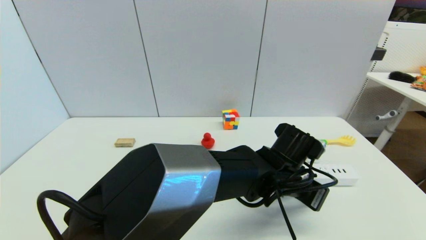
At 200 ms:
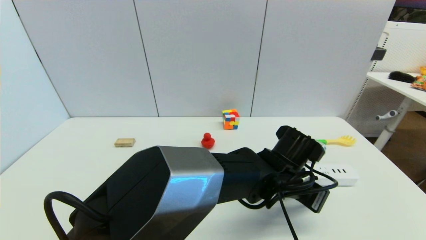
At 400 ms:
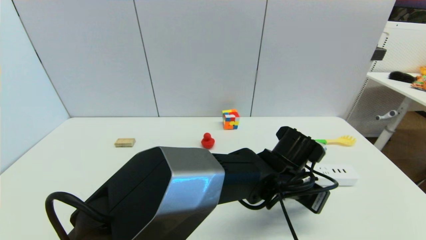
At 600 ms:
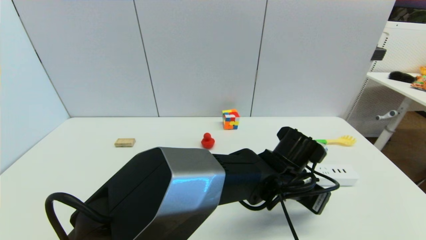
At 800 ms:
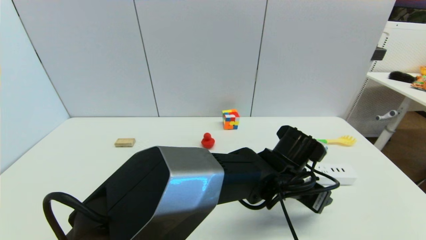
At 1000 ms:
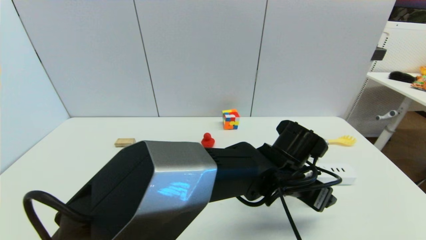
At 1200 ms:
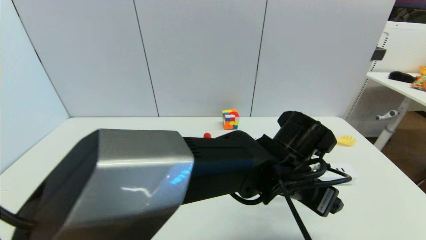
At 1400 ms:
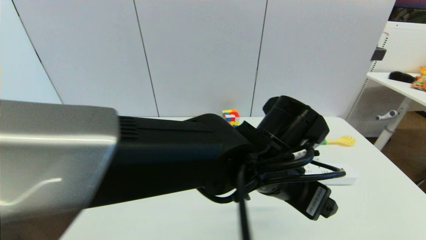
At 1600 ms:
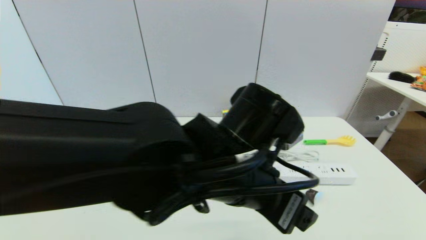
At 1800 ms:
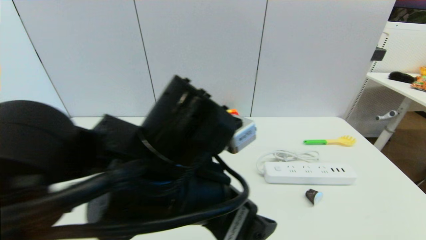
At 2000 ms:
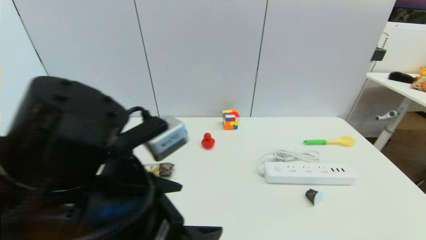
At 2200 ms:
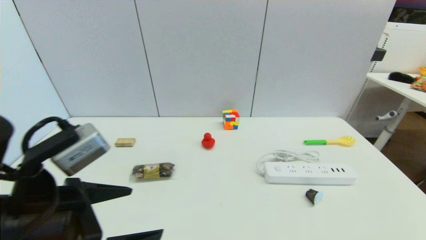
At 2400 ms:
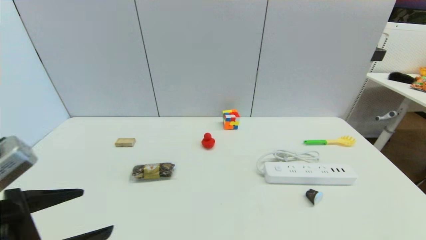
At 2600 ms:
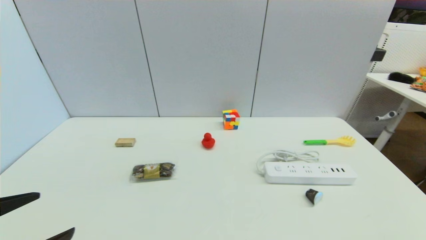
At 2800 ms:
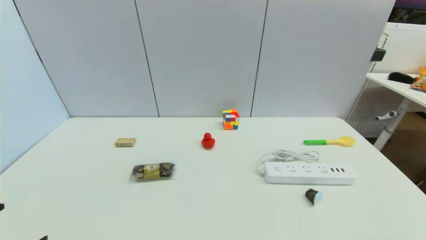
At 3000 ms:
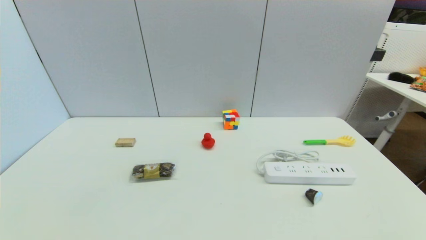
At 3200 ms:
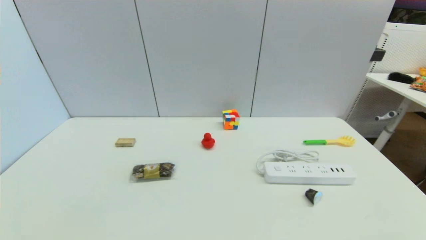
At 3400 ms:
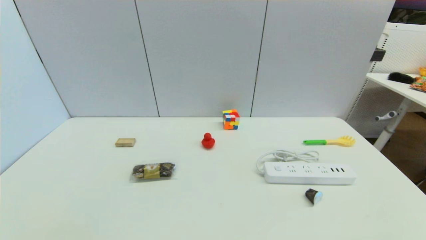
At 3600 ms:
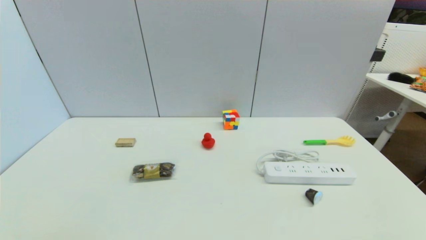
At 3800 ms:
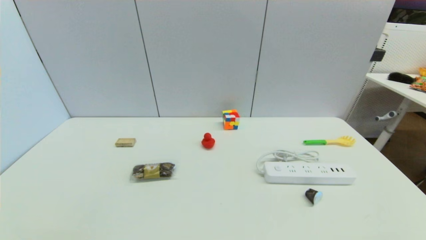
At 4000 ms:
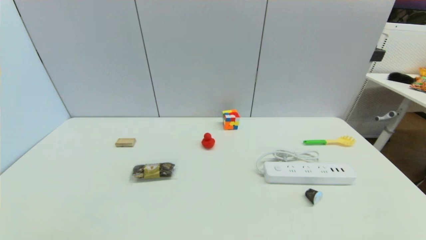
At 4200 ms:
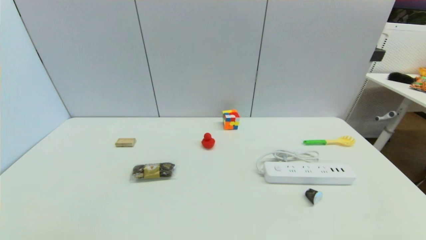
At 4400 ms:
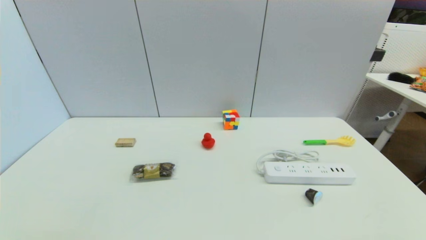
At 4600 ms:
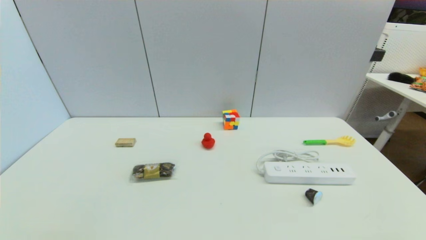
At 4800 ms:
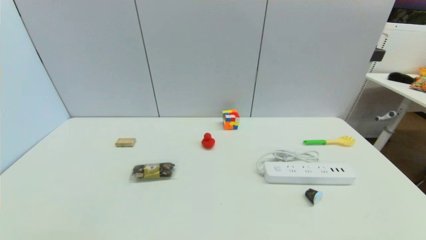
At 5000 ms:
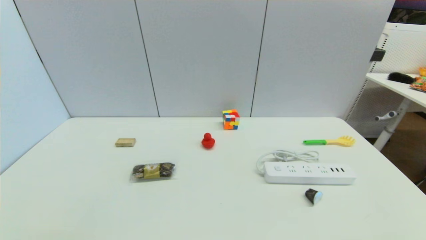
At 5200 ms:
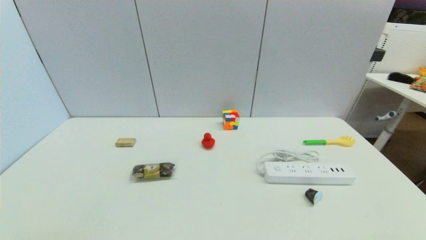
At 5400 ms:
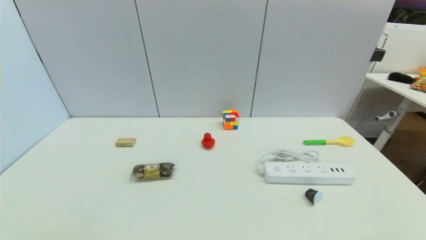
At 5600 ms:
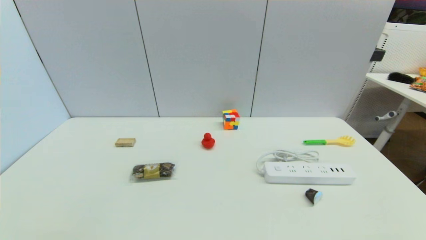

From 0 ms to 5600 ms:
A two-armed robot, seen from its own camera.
From 0 ms to 1400 ms: The left gripper travels upward, to the left and backward by some 10 cm, and opens up.
From 1400 ms to 2800 ms: The left gripper is displaced to the left and backward by some 40 cm.
From 4200 ms to 5600 ms: Neither gripper changes place.

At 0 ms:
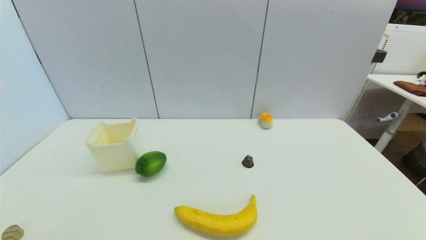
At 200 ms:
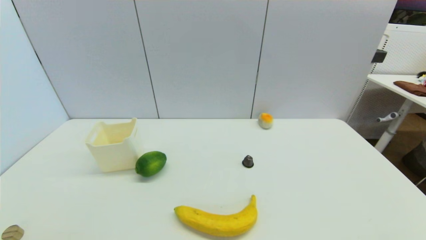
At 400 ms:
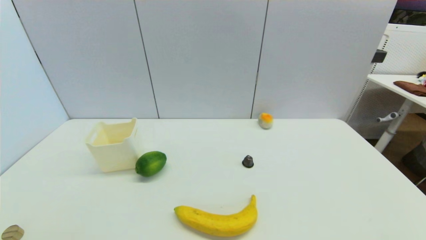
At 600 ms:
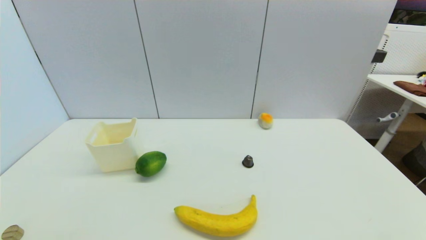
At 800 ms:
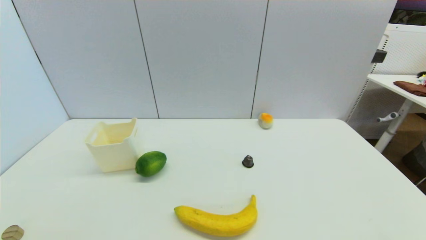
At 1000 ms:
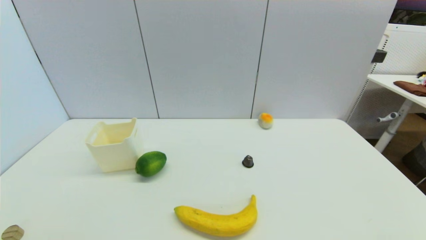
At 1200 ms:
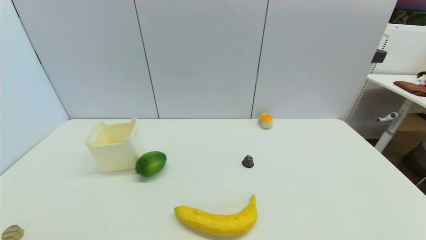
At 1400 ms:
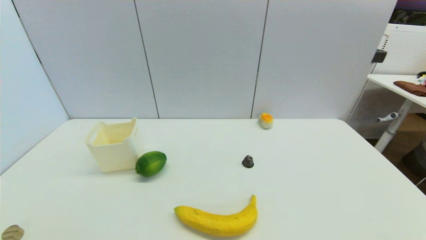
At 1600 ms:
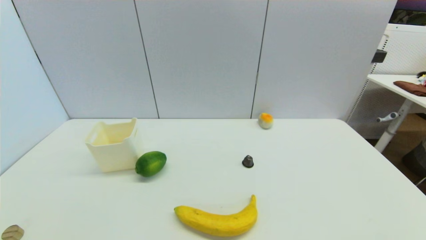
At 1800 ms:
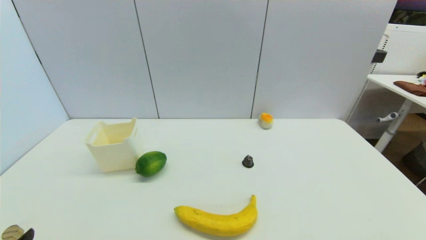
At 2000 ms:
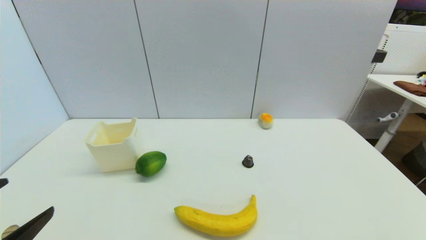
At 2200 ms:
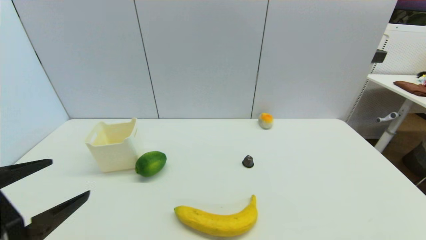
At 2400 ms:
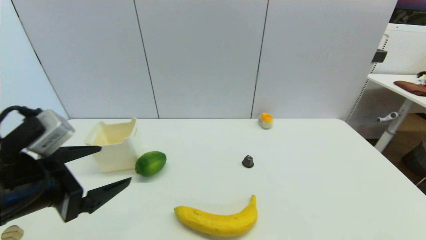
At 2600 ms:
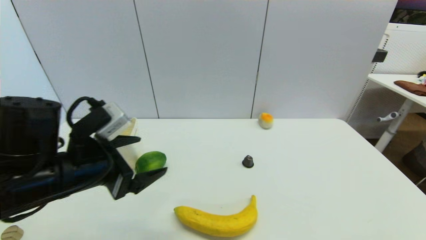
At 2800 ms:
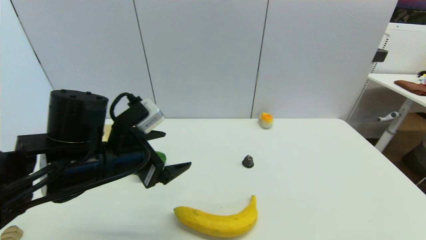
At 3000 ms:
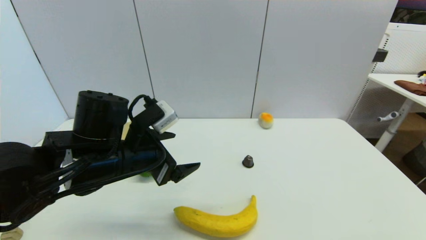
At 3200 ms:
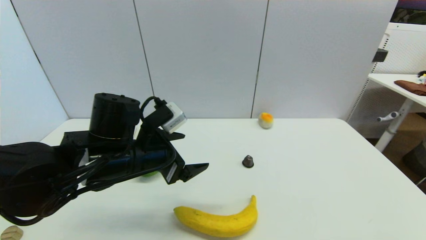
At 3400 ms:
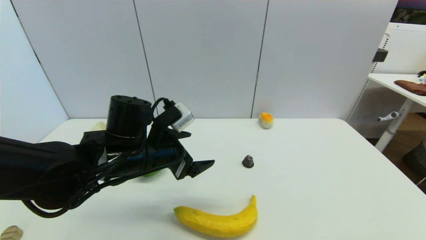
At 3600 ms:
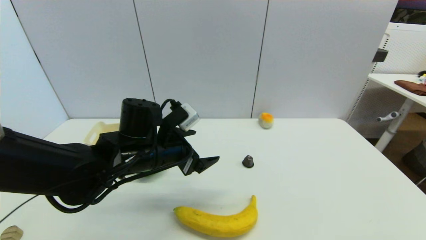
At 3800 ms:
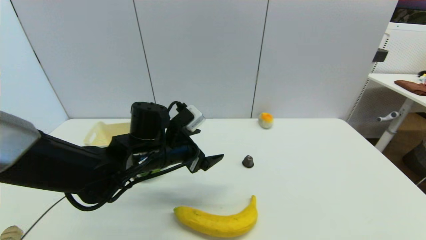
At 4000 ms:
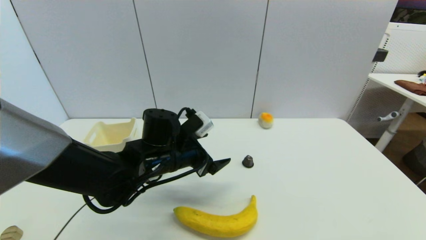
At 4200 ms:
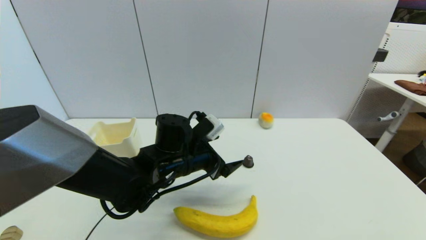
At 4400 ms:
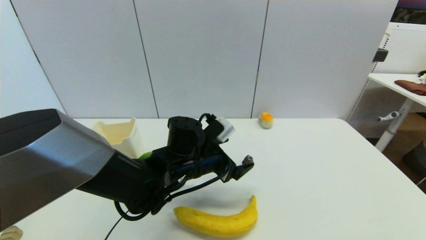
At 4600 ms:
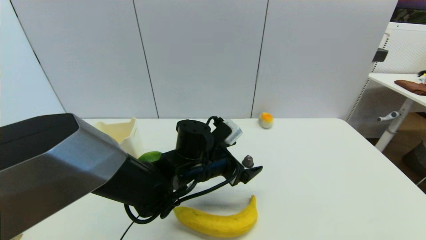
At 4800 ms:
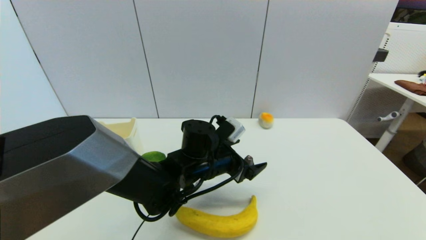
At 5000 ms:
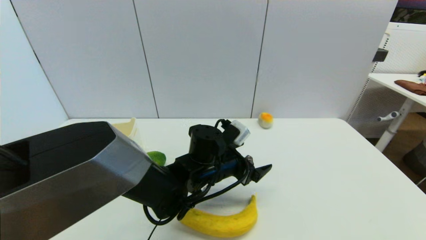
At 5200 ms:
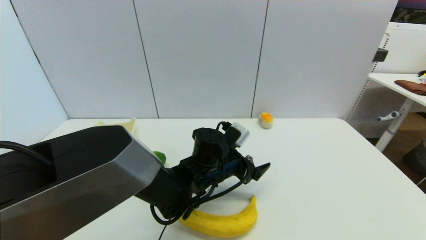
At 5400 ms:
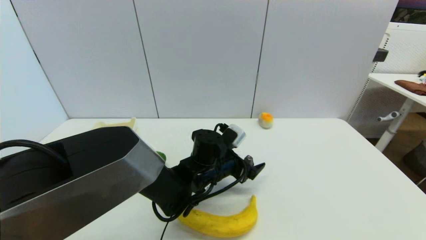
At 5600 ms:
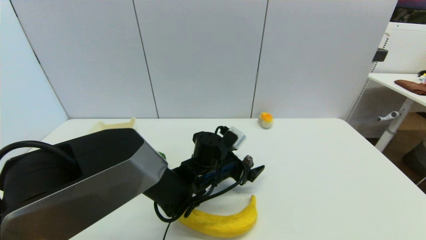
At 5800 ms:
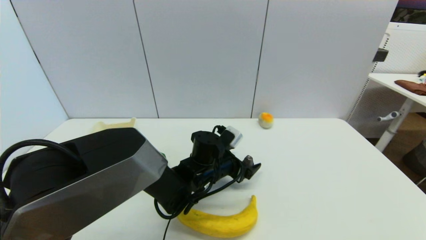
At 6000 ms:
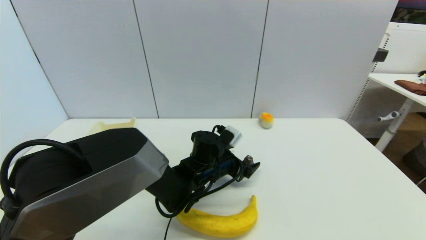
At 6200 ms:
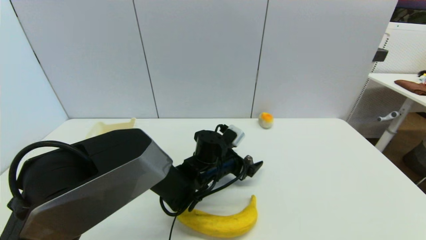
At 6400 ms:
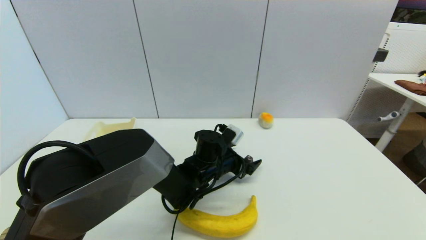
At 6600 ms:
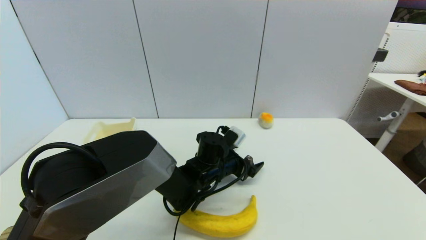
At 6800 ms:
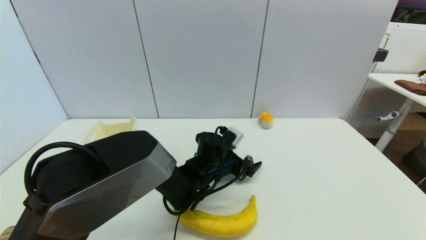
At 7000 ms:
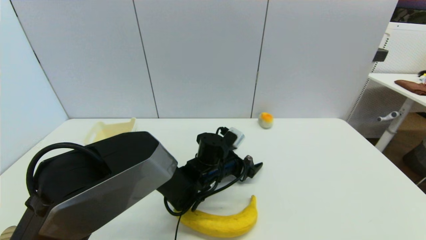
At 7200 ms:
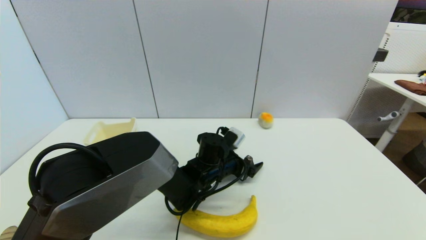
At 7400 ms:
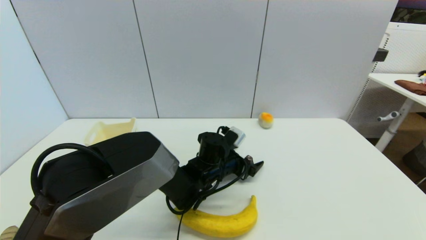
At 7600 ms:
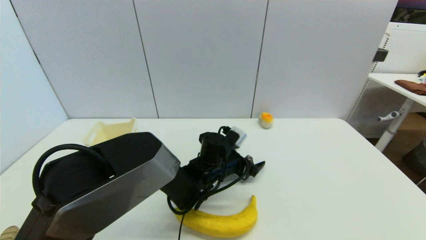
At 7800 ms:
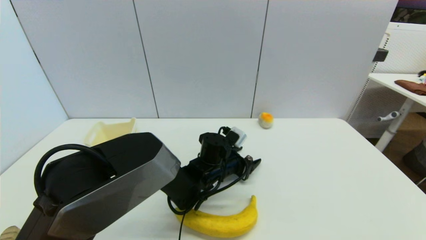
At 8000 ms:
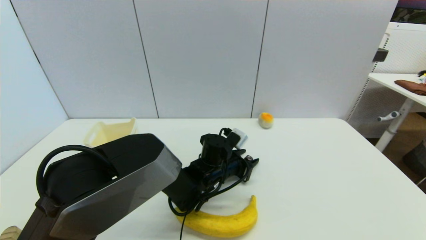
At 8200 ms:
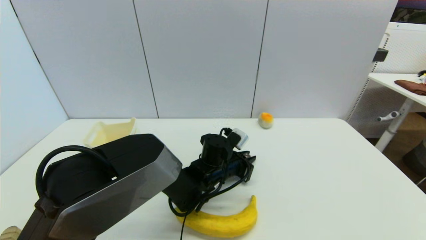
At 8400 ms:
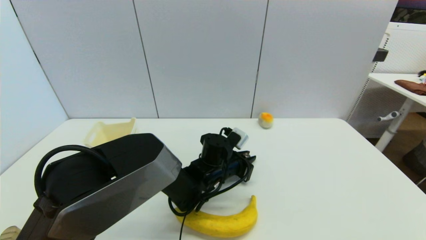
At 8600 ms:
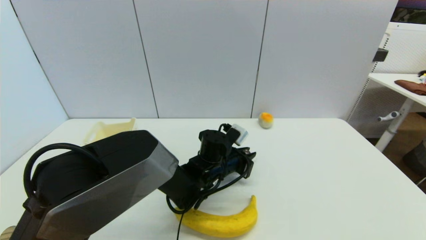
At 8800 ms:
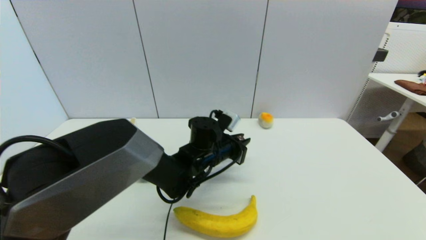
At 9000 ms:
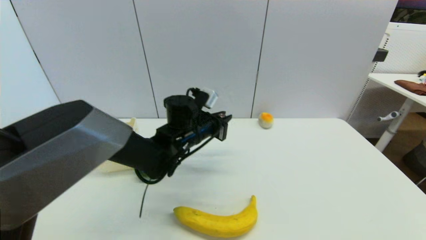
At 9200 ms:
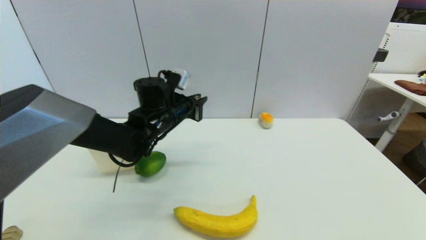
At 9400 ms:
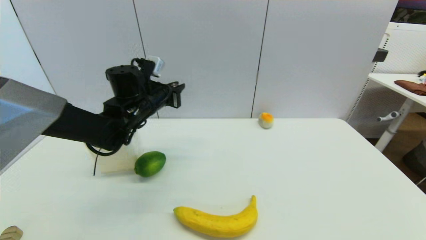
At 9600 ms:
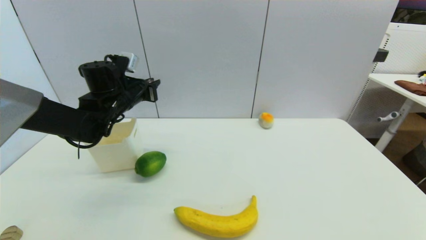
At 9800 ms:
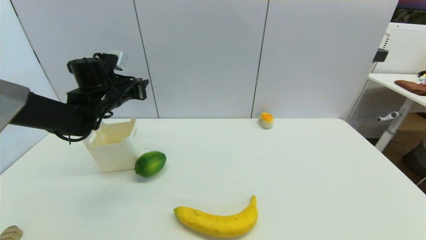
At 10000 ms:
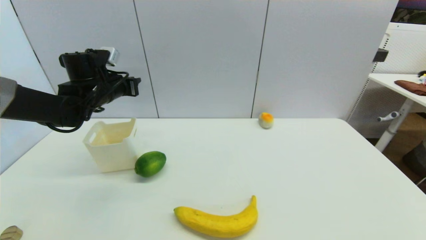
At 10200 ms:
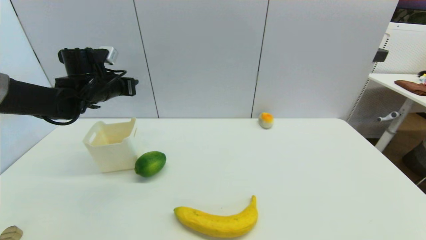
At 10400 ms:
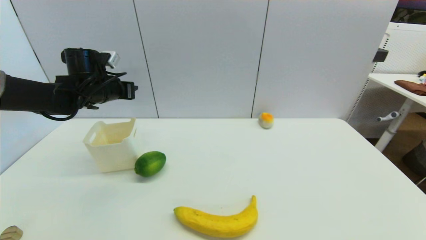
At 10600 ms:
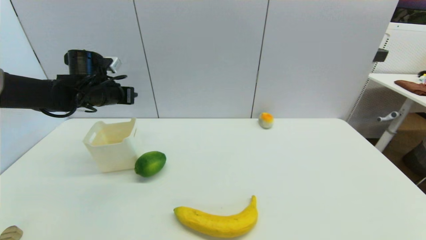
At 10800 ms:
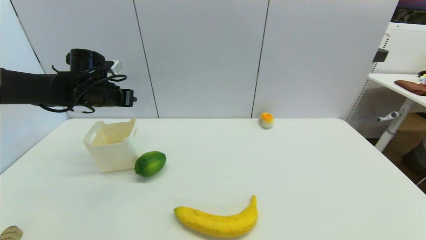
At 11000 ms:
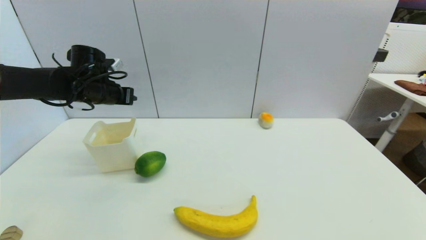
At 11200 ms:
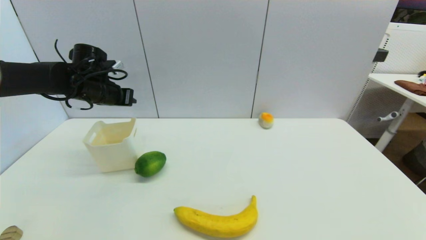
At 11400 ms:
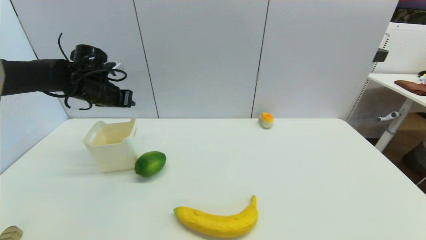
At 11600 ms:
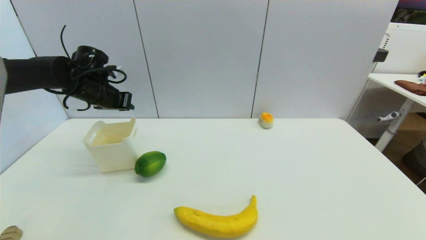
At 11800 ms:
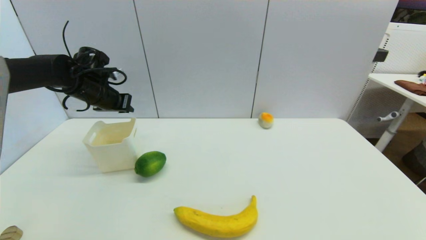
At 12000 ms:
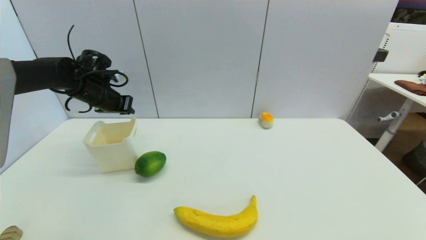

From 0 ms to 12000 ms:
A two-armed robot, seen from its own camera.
Step, from 1800 ms to 8600 ms: Grasp the coffee capsule with left gripper.
From 1600 ms to 3000 ms: The left gripper shifts roughly 30 cm forward and to the right.
From 3000 ms to 4400 ms: The left gripper heads to the right, downward and forward, covering some 15 cm.
From 4400 ms to 6000 ms: The left gripper travels downward by about 5 cm.
From 6000 ms to 7600 ms: The grippers move only a little.
From 7600 ms to 9000 ms: The left gripper heads upward and to the left, covering some 15 cm, and closes up.
From 9000 ms to 10400 ms: The left gripper goes approximately 20 cm to the left.
